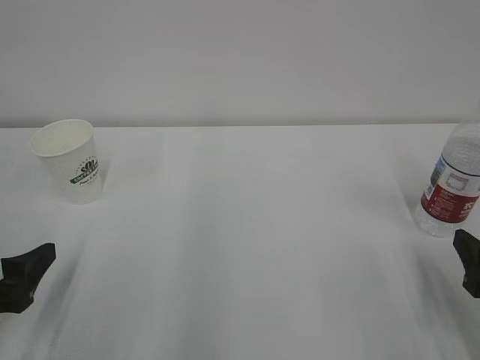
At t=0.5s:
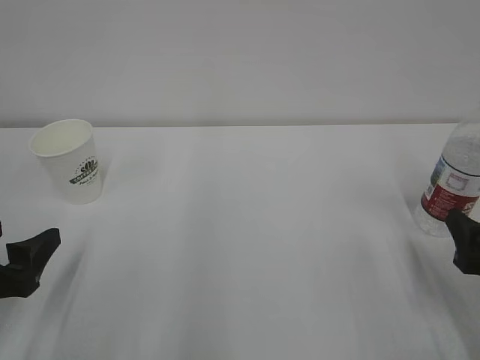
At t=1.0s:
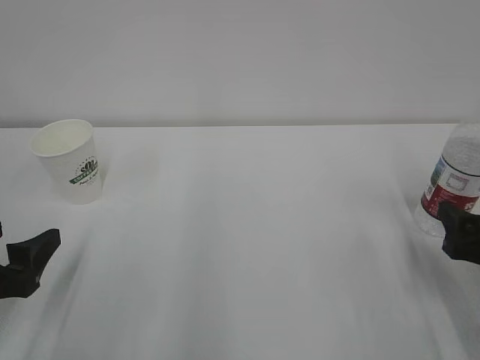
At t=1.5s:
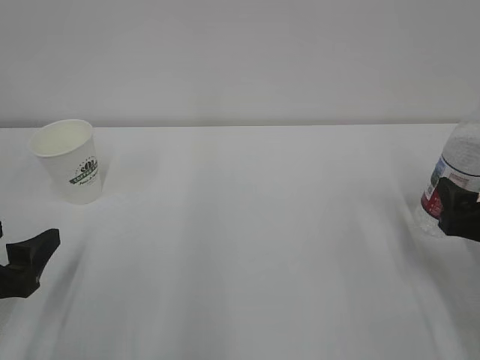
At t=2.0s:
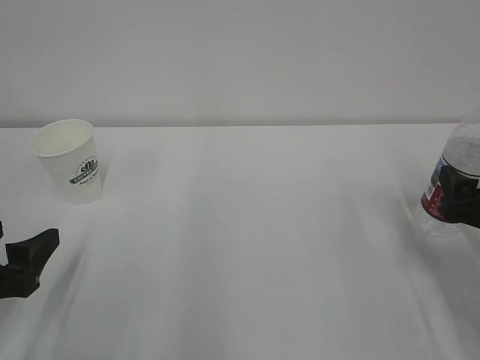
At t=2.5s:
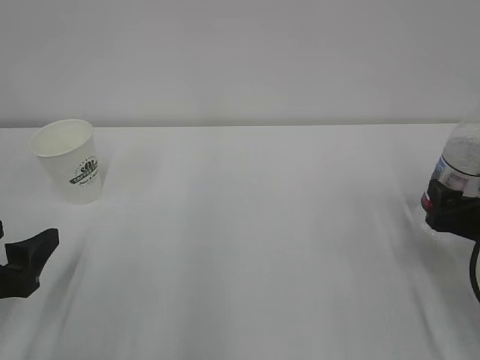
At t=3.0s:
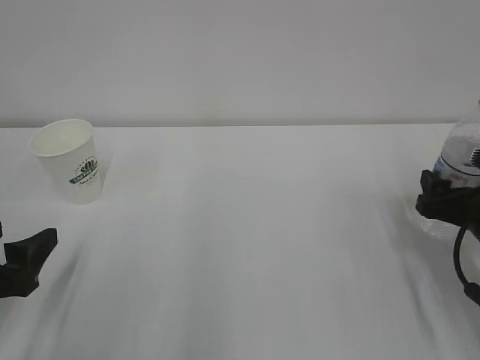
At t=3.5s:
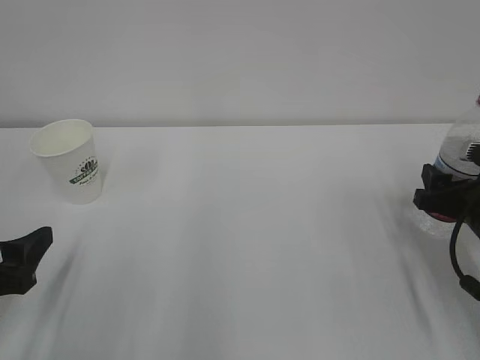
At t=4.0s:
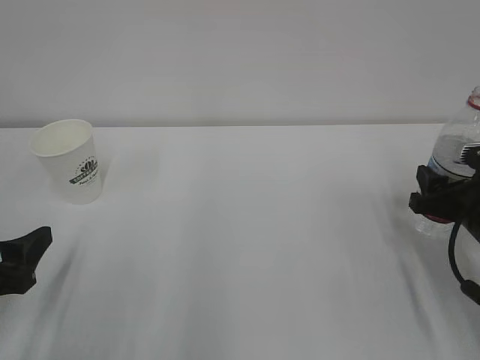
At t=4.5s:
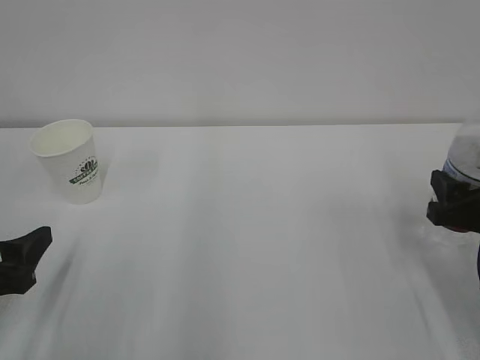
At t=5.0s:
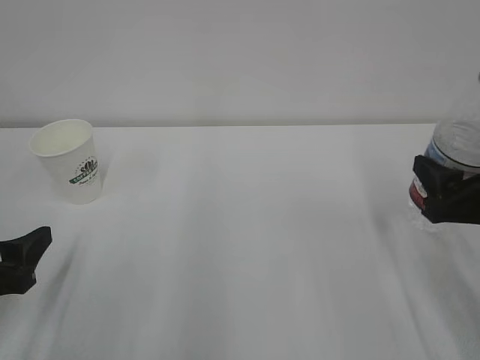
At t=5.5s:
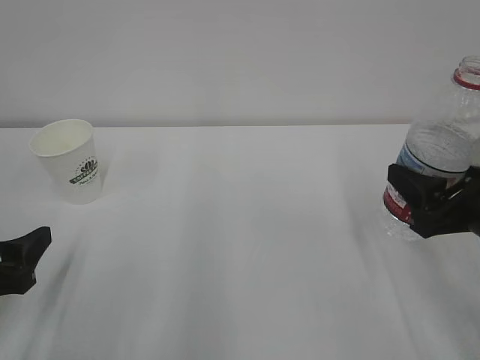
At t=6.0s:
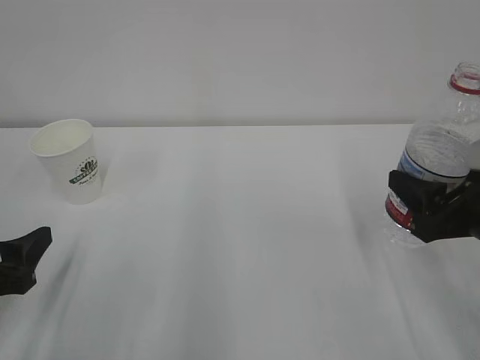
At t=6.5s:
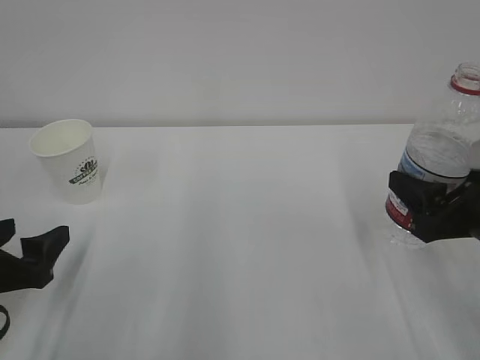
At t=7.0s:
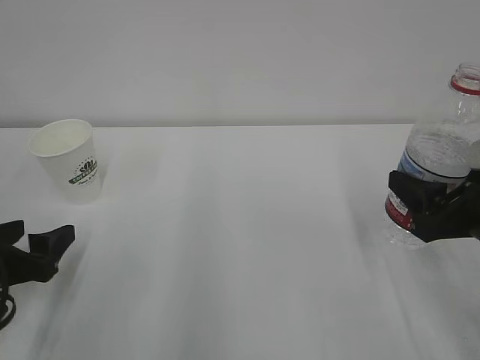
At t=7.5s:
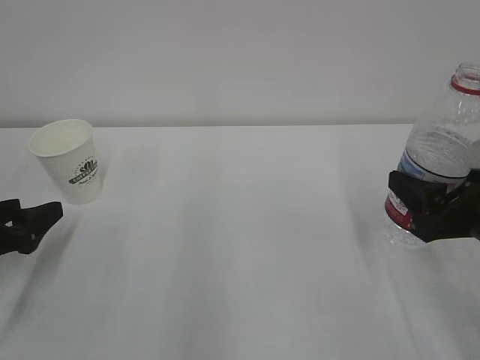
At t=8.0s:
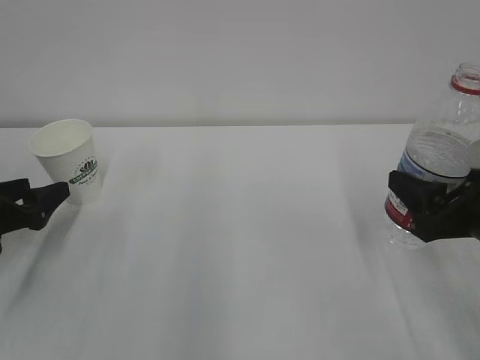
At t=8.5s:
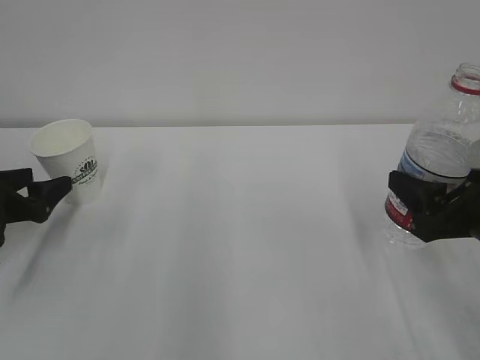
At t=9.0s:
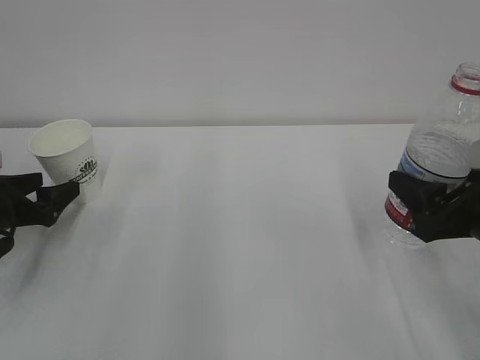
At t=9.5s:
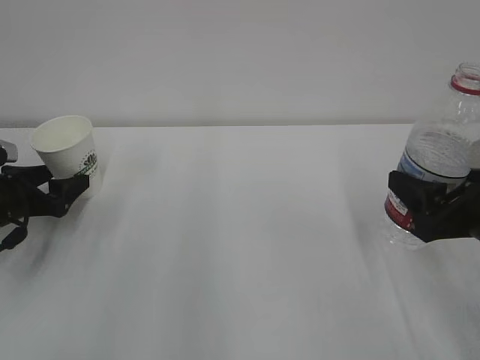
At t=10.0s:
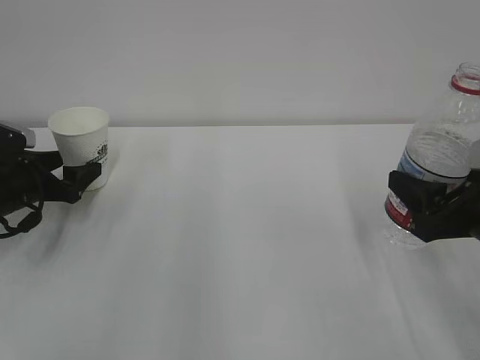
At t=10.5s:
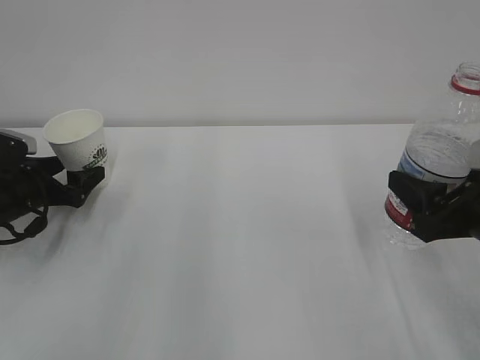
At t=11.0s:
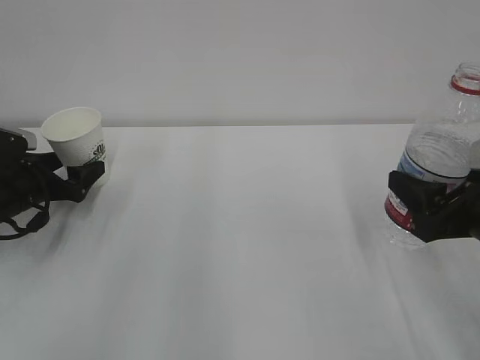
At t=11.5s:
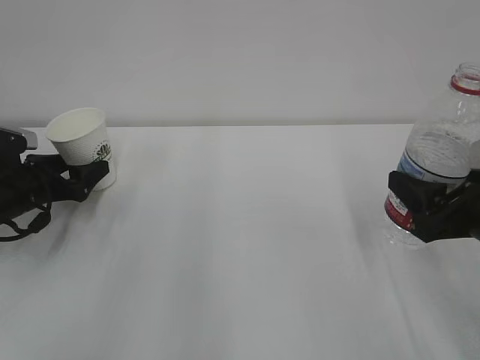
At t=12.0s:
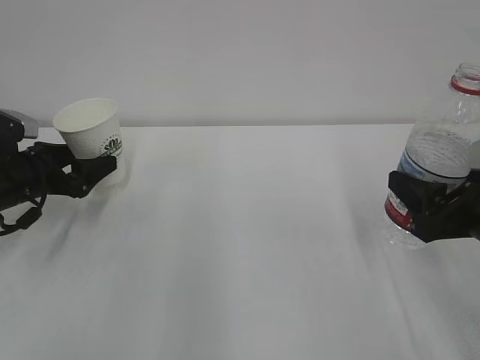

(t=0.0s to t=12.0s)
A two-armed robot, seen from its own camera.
t=0.0s - t=2.0s: The right gripper is displaced forward by roughly 5 cm.
t=2.0s - t=4.0s: The right gripper shifts by roughly 5 cm, and closes up.
t=4.0s - t=6.0s: The right gripper is displaced upward and backward by approximately 10 cm.
t=6.0s - t=8.0s: The left gripper moves forward, some 10 cm.
t=8.0s - t=10.0s: The left gripper shifts some 10 cm forward.
t=10.0s - t=12.0s: The grippers stay close to where they were, moving slightly.

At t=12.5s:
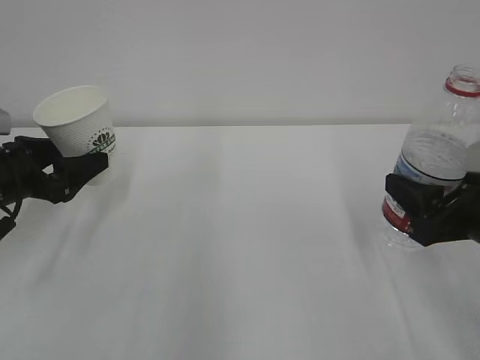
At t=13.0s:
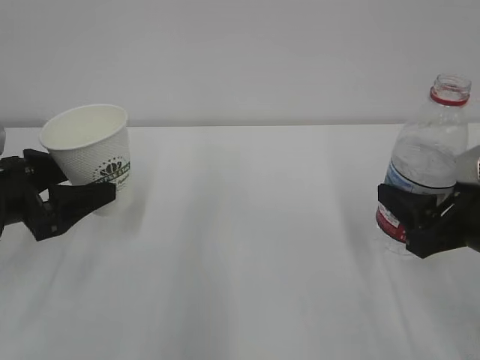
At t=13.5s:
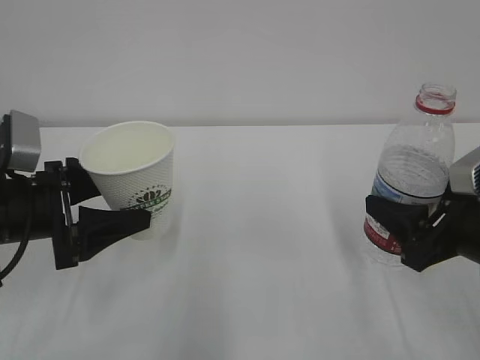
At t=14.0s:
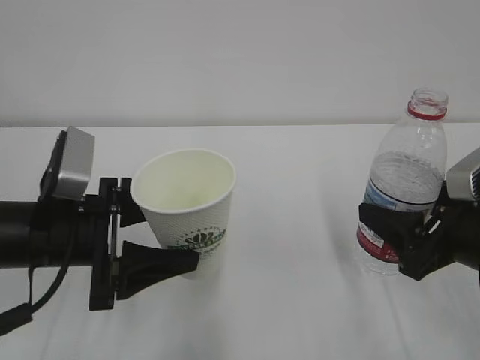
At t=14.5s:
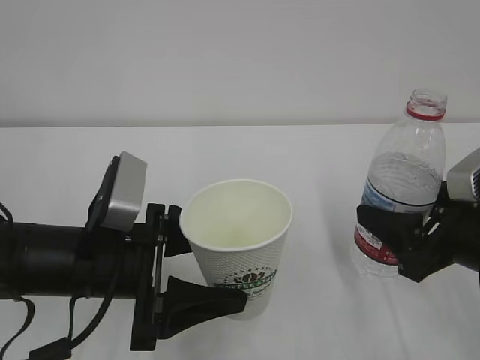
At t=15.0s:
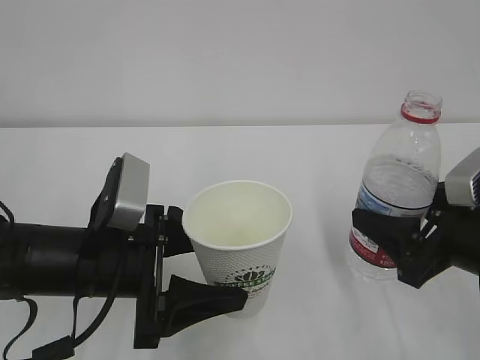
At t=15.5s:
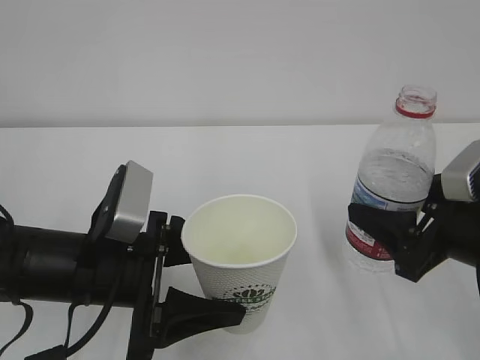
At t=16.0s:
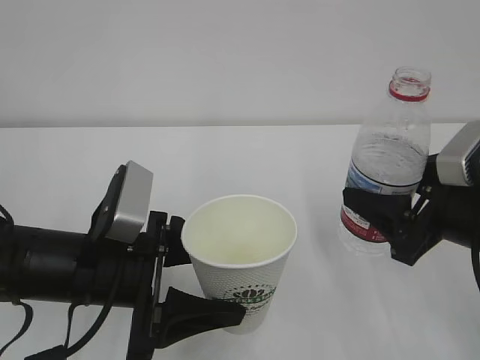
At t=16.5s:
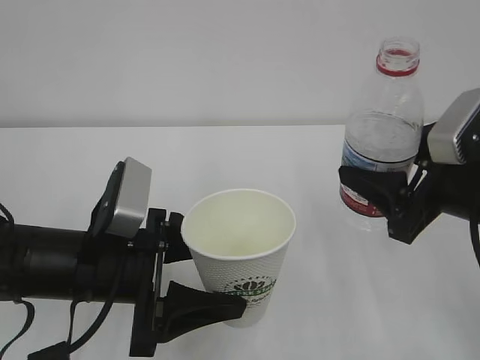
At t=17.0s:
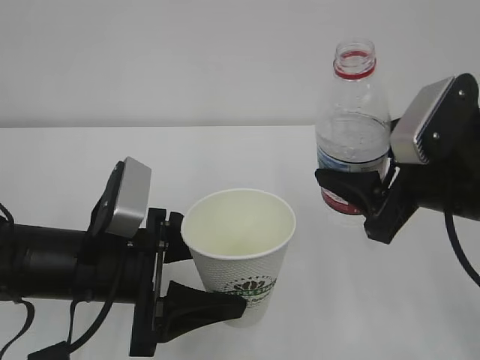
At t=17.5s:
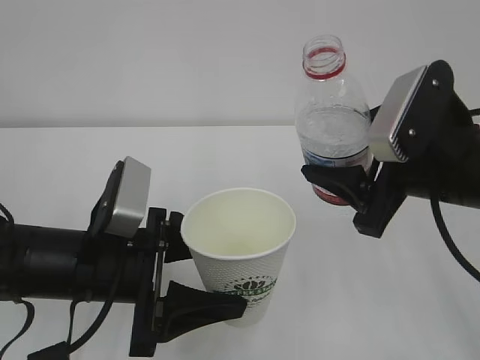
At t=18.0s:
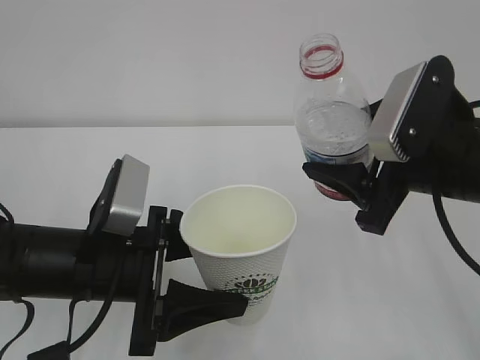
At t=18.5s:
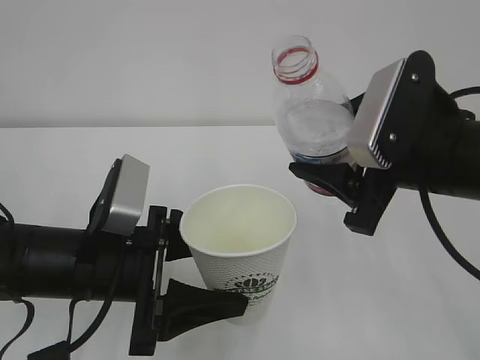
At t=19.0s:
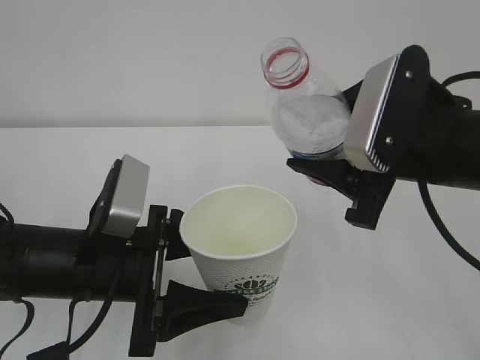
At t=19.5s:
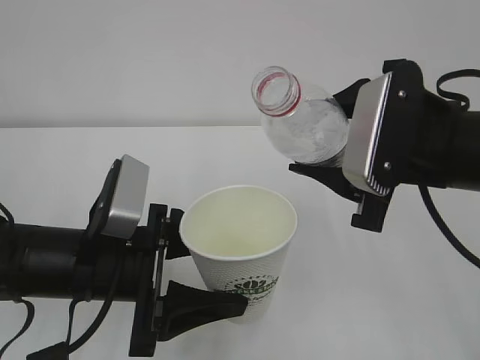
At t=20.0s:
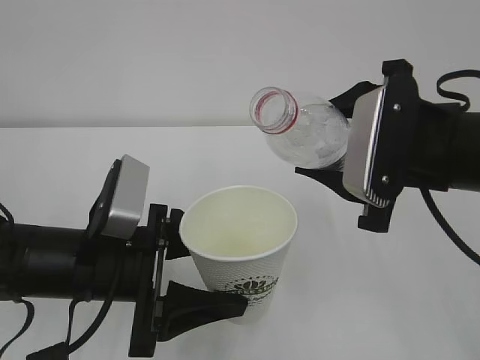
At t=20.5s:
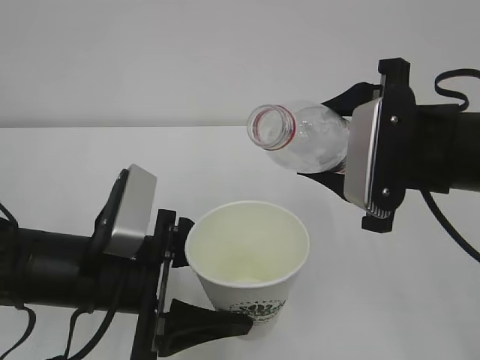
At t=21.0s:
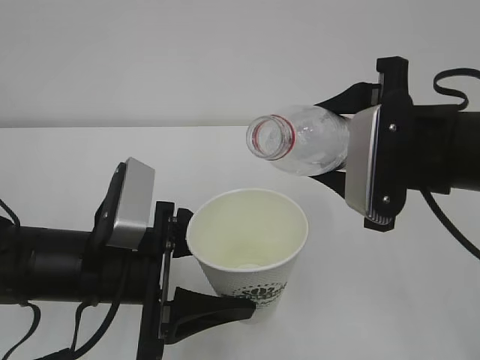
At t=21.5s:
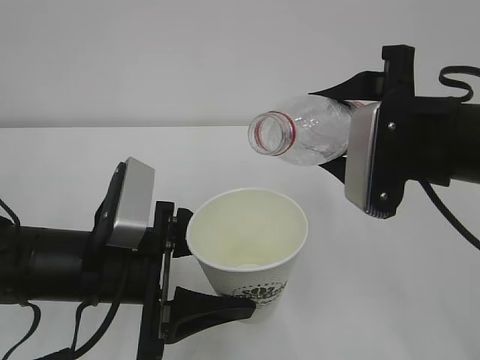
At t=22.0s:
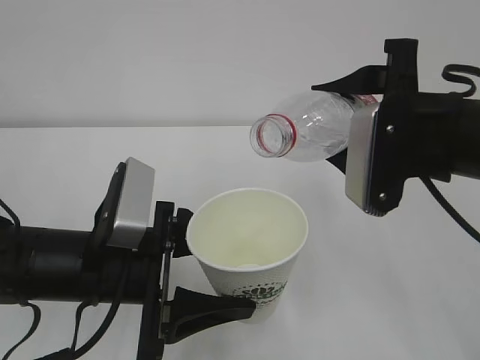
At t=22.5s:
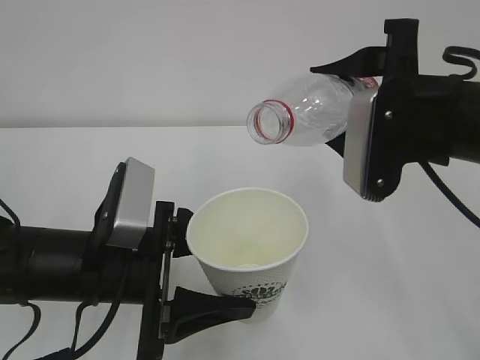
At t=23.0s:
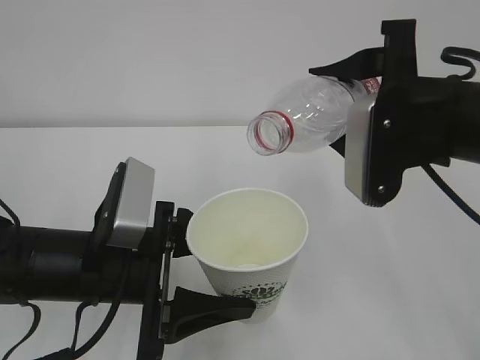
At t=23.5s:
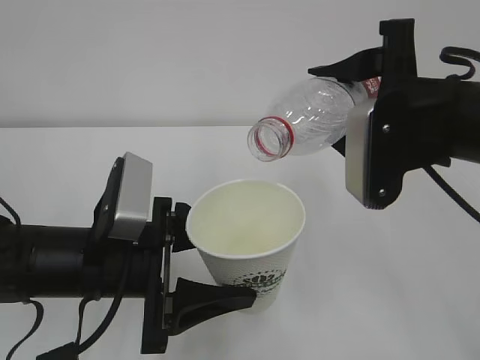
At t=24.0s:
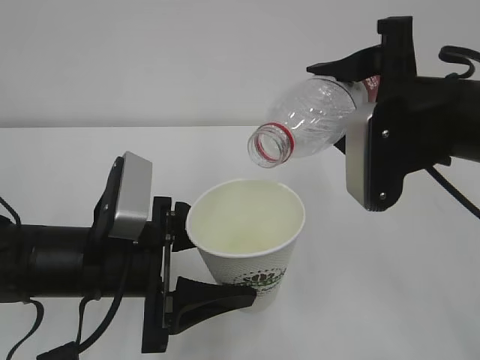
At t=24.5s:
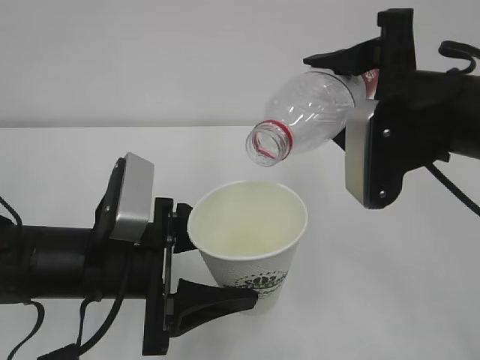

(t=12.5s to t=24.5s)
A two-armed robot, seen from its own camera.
t=12.5s - t=14.5s: The left gripper goes approximately 20 cm to the right and backward.
t=14.5s - t=16.5s: The right gripper changes place by roughly 5 cm.
t=16.5s - t=18.5s: The right gripper is displaced to the left by about 5 cm.
t=20.5s - t=22.5s: The grippers make only small movements.
t=22.5s - t=24.5s: The grippers make only small movements.

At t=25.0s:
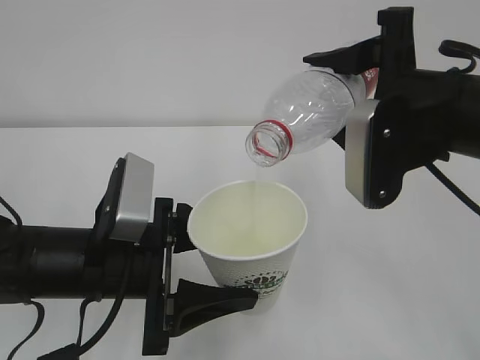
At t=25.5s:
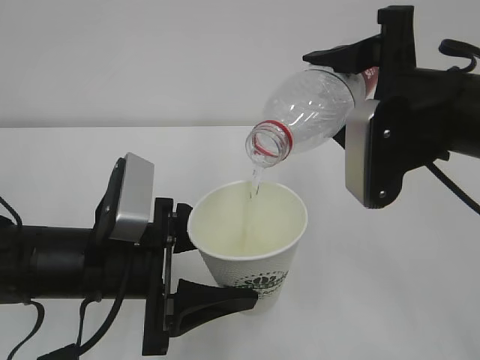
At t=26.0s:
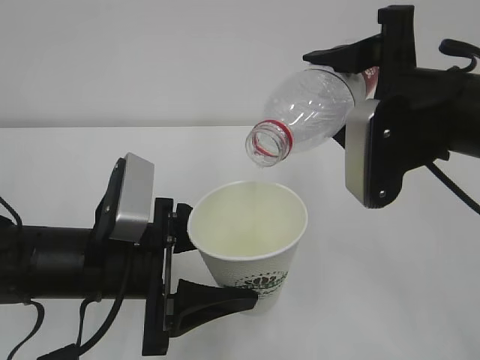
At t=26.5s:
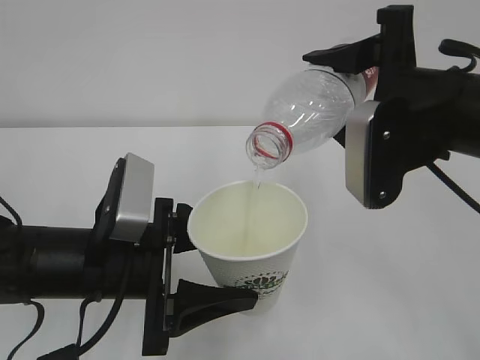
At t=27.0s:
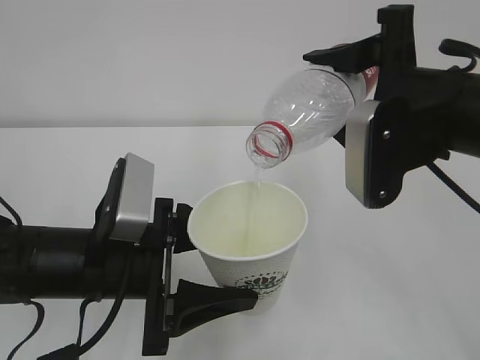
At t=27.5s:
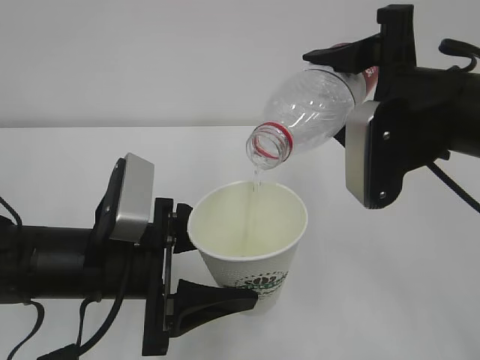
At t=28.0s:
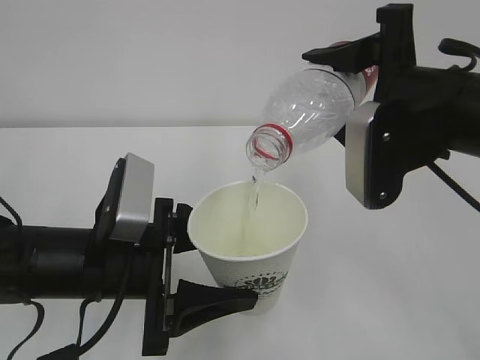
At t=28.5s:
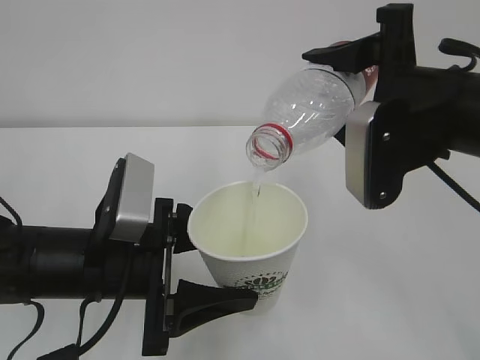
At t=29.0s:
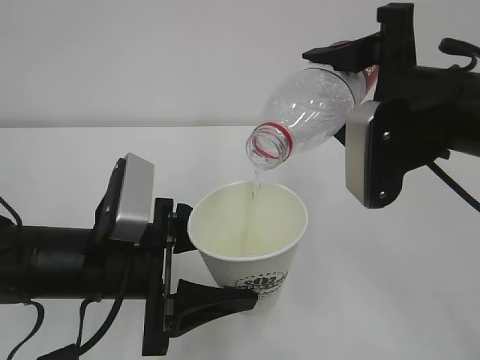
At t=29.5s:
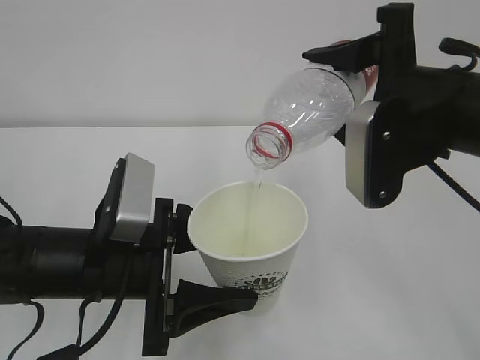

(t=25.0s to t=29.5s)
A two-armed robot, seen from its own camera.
t=25.0s - t=29.5s: Neither gripper changes place.
